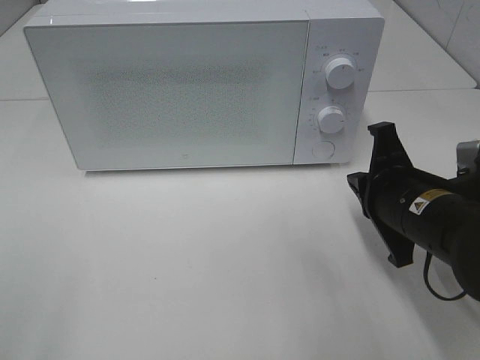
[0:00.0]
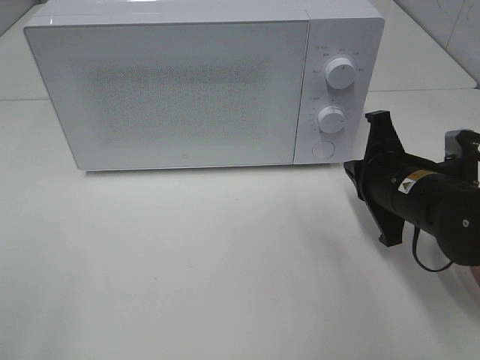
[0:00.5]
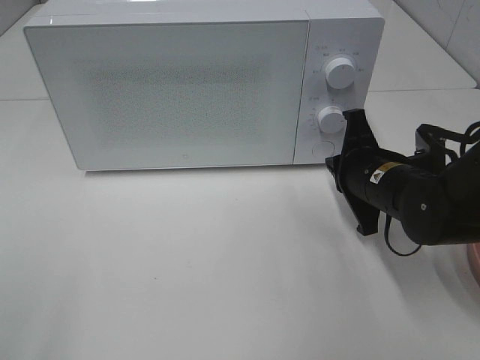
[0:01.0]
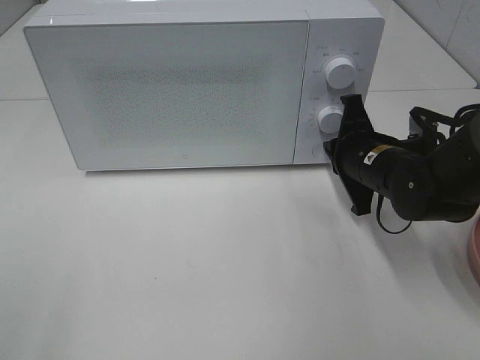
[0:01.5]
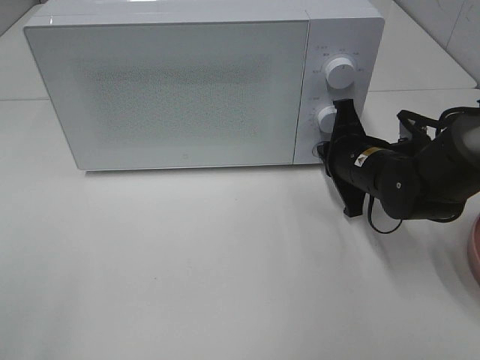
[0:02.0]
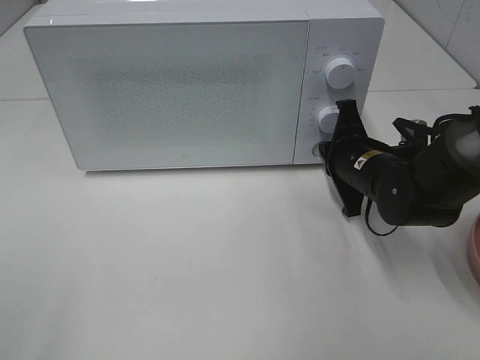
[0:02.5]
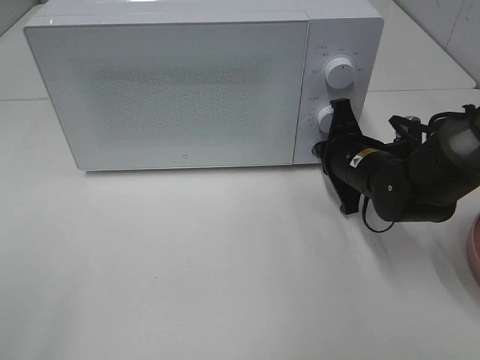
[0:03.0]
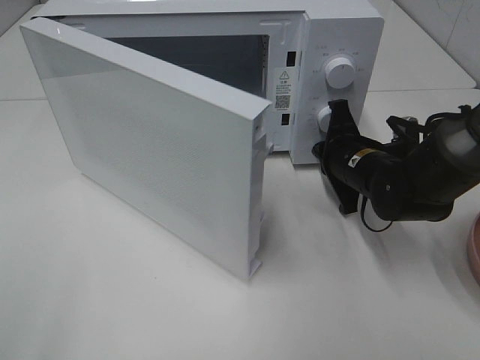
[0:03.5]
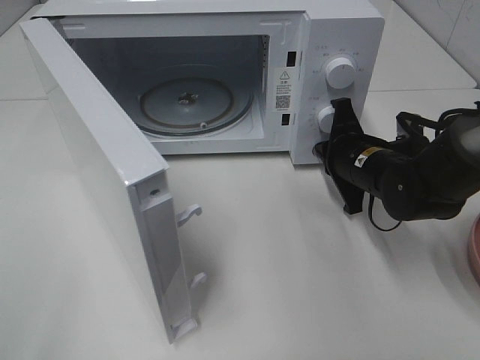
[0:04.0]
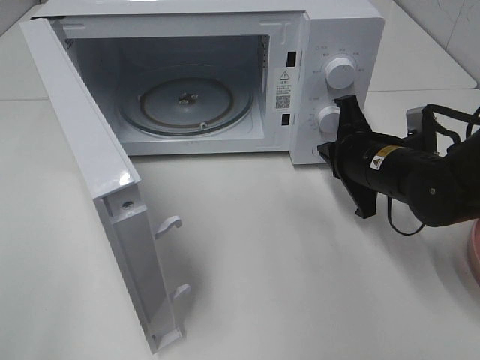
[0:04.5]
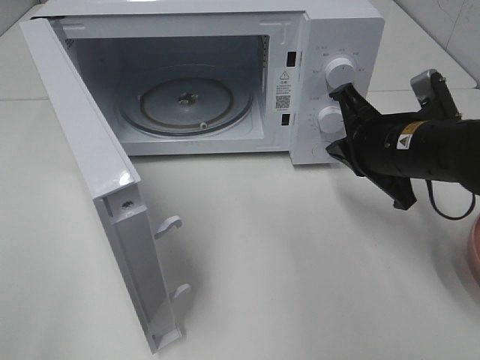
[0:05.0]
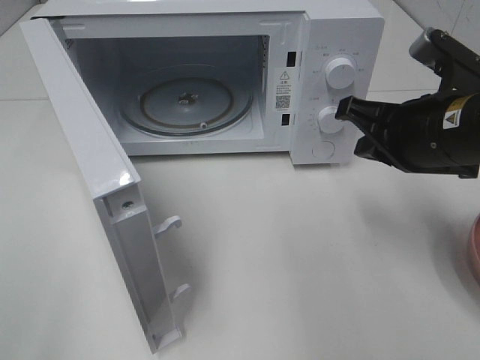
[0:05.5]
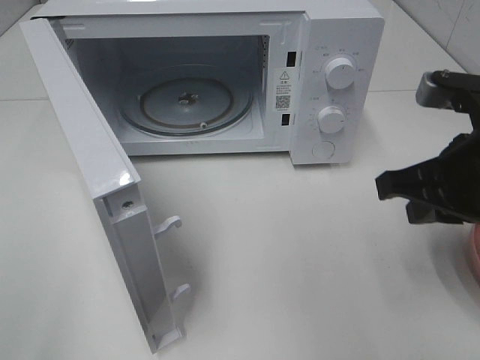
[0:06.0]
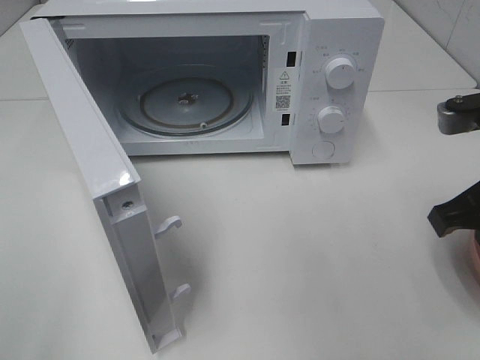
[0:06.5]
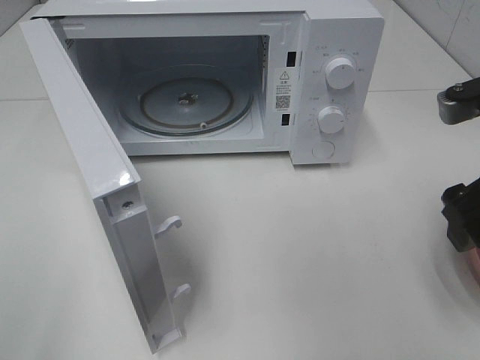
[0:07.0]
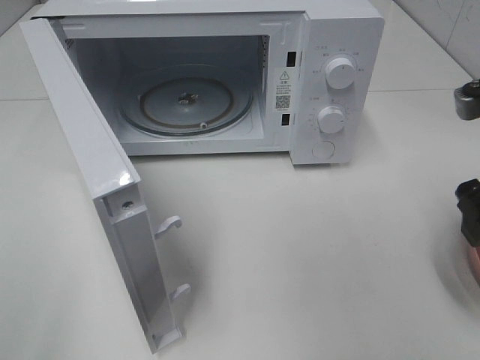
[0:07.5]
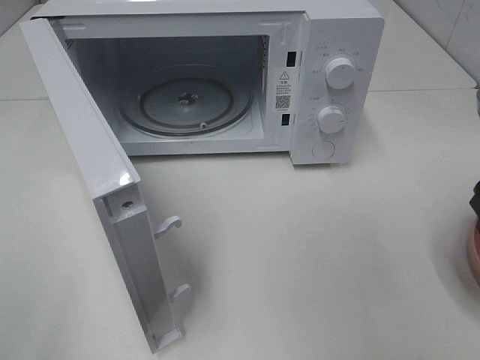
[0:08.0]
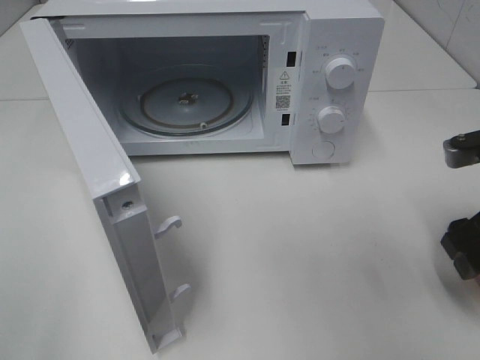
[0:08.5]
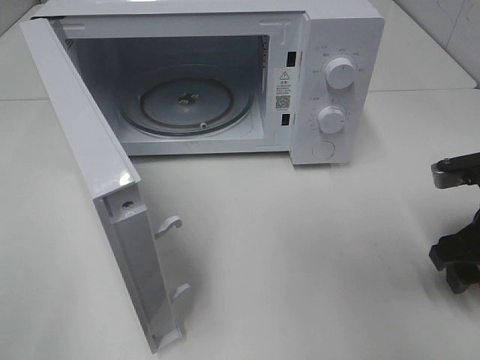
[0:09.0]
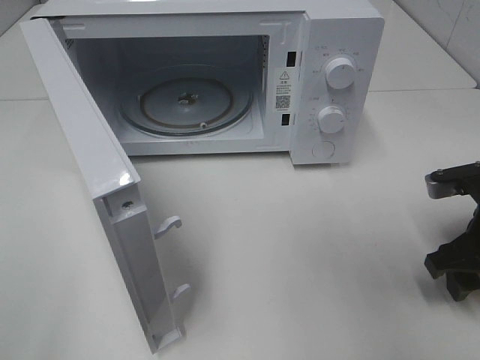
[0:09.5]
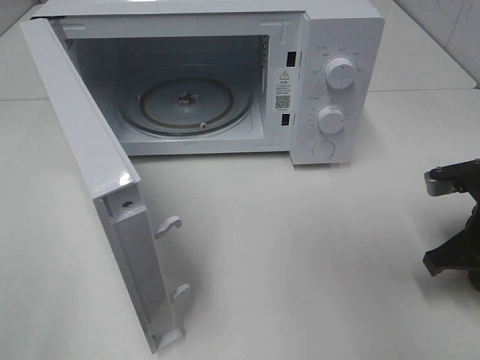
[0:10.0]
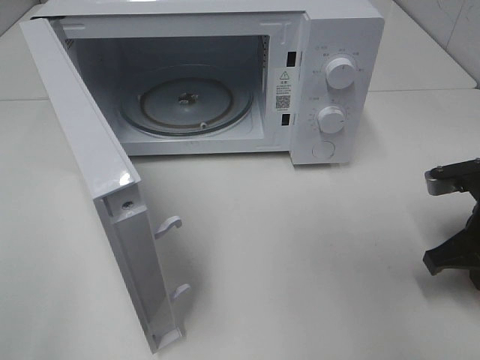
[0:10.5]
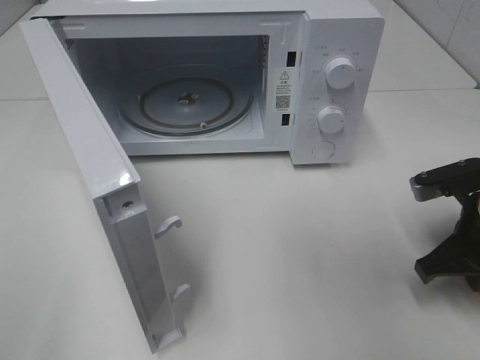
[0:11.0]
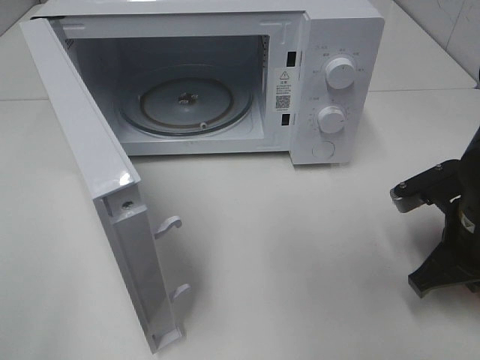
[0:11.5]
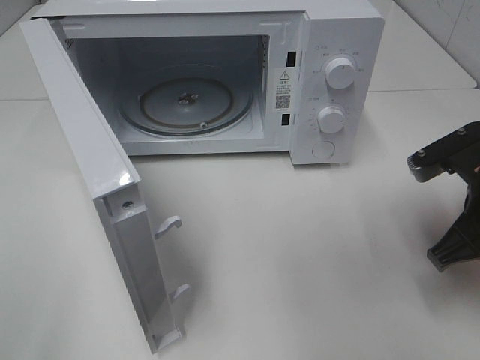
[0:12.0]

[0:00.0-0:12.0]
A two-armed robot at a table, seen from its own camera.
Task of the whole recording: Heat the burger.
Step, 0:00.0 to 0:04.0: Right hand: press the switch.
Step, 0:04.5 to 0:10.5: Right hand: grab the plate with the hamburger.
0:00.0 to 0:02.0: The right gripper shifts about 10 cm forward.
0:04.0 to 0:06.0: The right gripper goes approximately 20 cm backward and upward.
0:06.0 to 0:08.0: The right gripper goes roughly 5 cm to the right, and opens up.
0:08.0 to 0:10.0: The right gripper is displaced downward by some 10 cm, and closes up.
0:10.0 to 0:12.0: The right gripper shifts by about 5 cm.

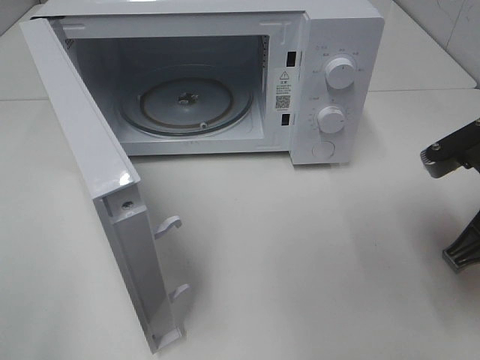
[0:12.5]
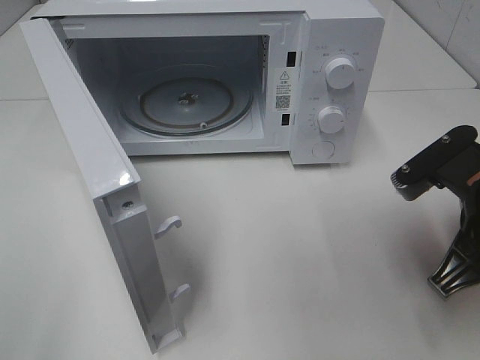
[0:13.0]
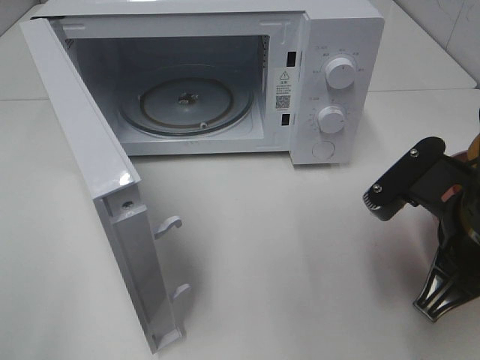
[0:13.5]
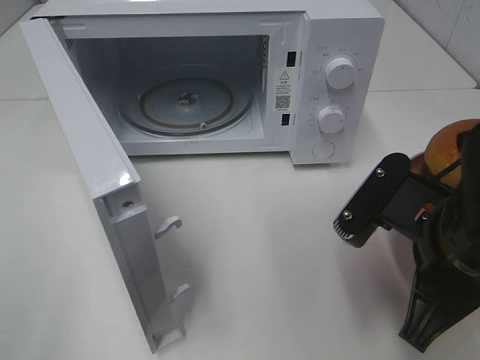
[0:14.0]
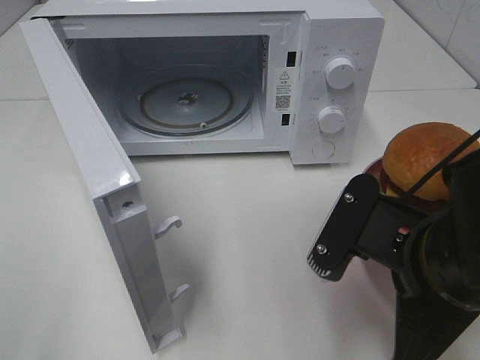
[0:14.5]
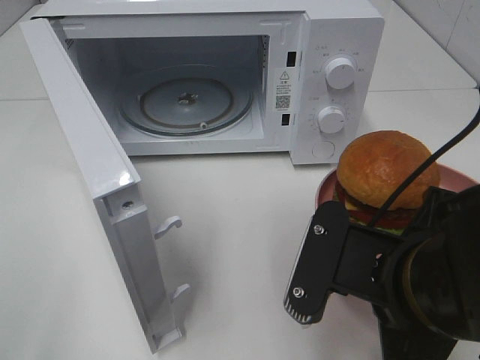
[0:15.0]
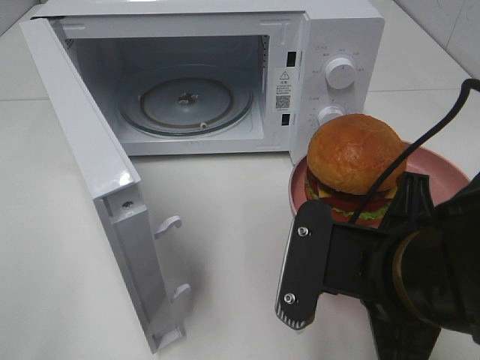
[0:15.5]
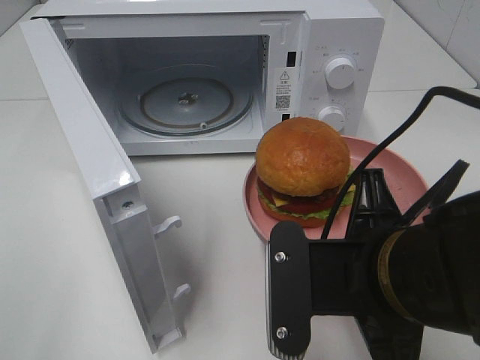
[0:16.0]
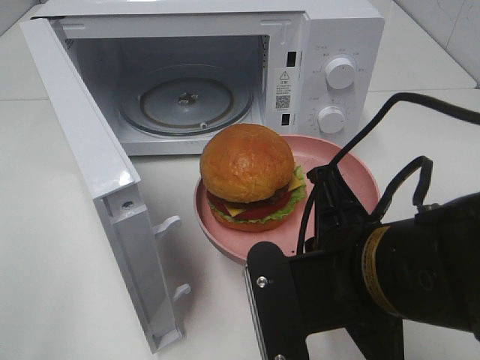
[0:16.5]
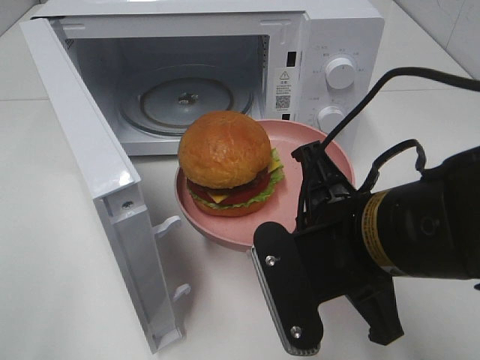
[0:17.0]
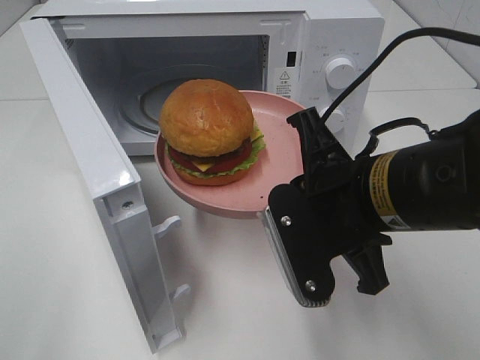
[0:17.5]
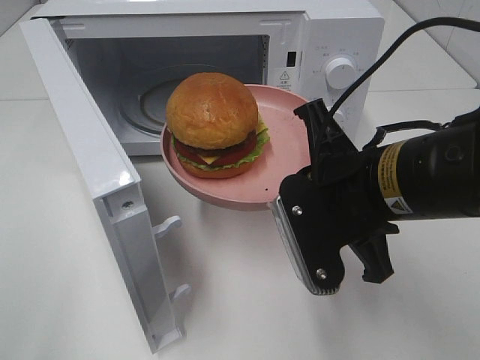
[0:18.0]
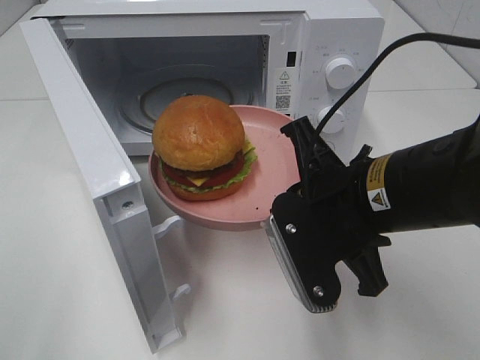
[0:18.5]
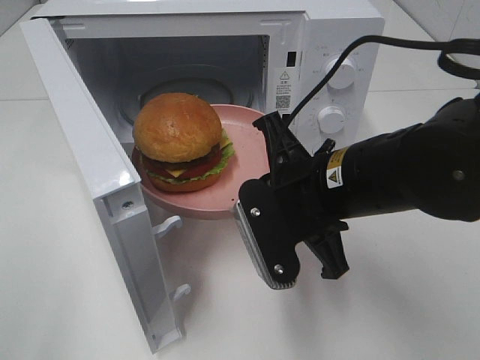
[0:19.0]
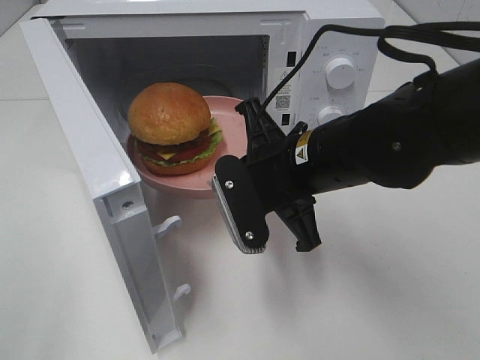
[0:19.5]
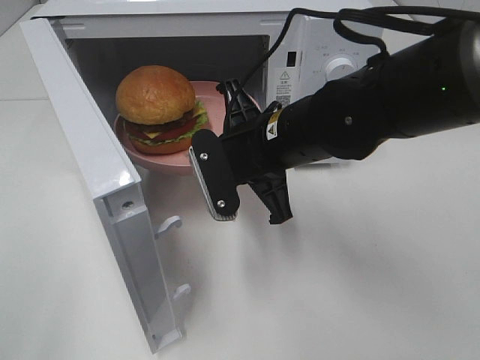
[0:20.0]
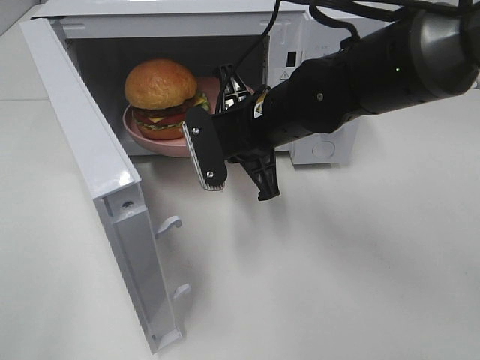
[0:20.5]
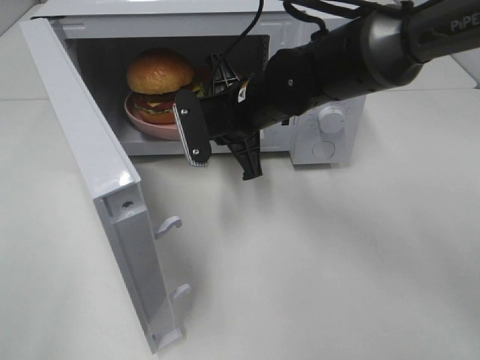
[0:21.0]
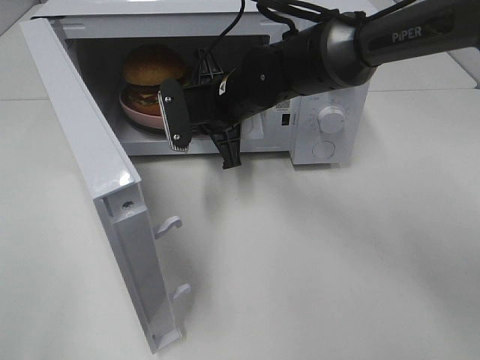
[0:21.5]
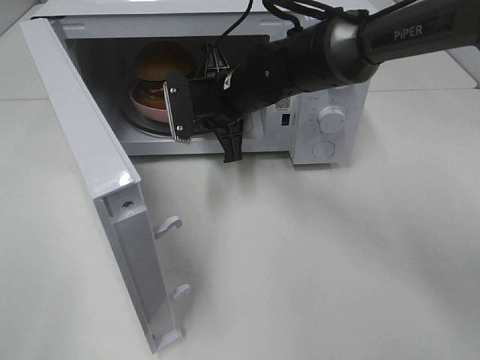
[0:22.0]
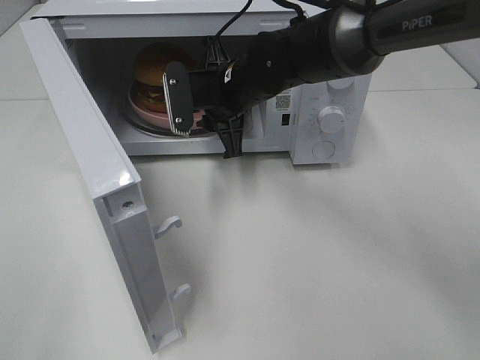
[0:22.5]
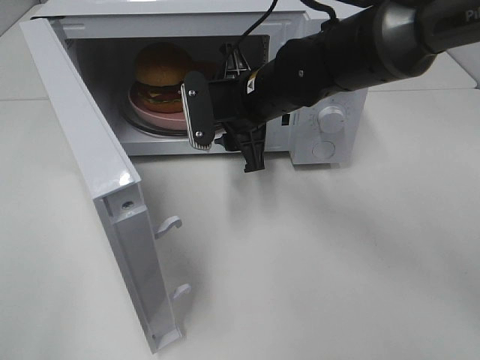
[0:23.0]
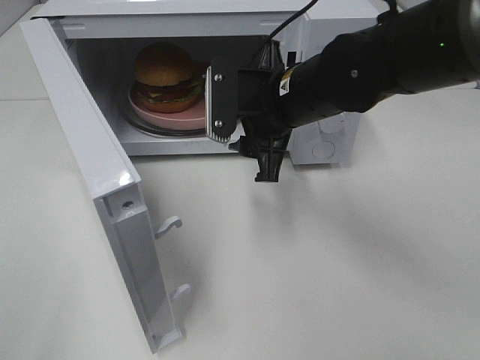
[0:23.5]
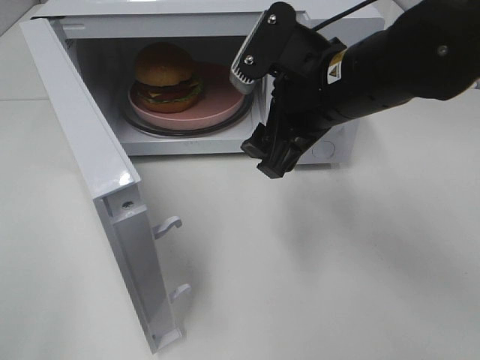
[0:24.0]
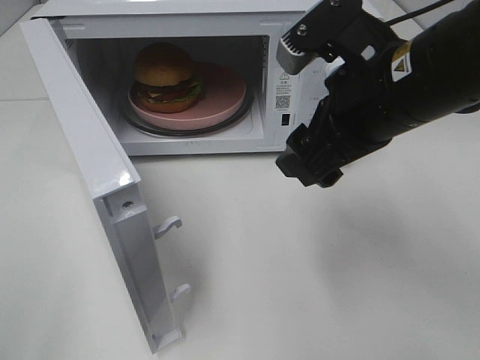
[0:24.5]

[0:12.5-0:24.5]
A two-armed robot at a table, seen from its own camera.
Task of the whole recording: Heat the burger.
Step, 0:12.5 to 0:22.0: Right hand: place the plate in the microwave.
0:12.5 to 0:14.5: The right gripper goes about 10 cm to the left and backward.
0:16.5 to 0:18.5: The right gripper heads forward, covering about 5 cm.
0:18.5 to 0:20.5: The right gripper heads forward and to the left, covering roughly 15 cm.
0:20.5 to 0:22.5: The right gripper heads forward, covering roughly 10 cm.
0:22.5 to 0:24.5: The right gripper moves backward, to the right and upward, about 20 cm, and opens its fingers.

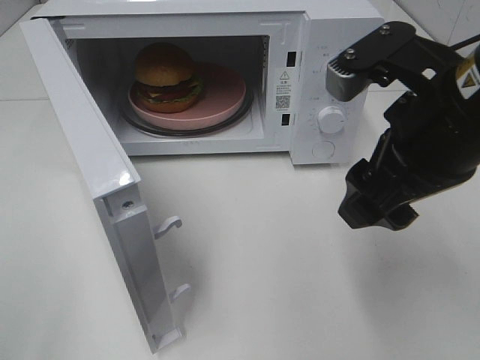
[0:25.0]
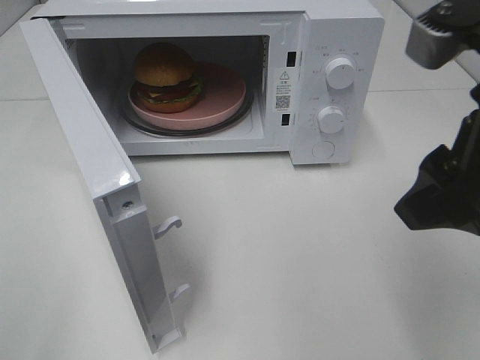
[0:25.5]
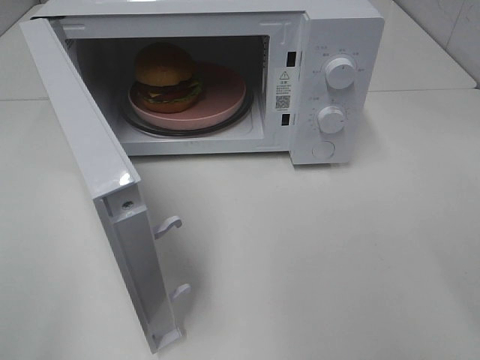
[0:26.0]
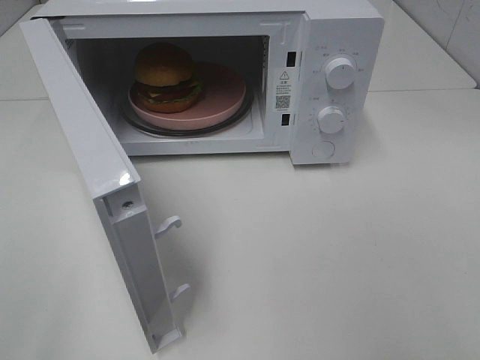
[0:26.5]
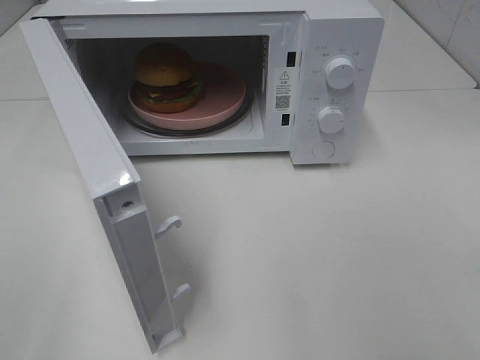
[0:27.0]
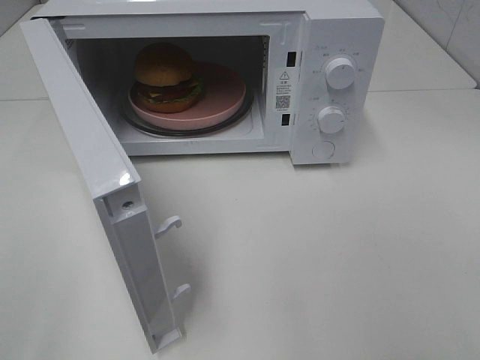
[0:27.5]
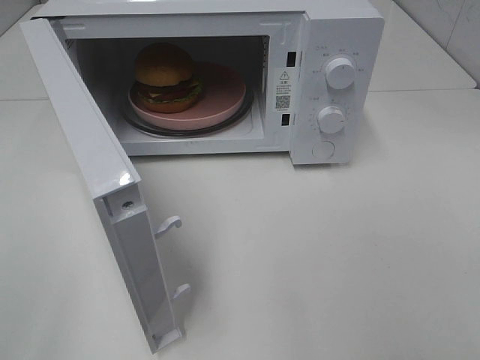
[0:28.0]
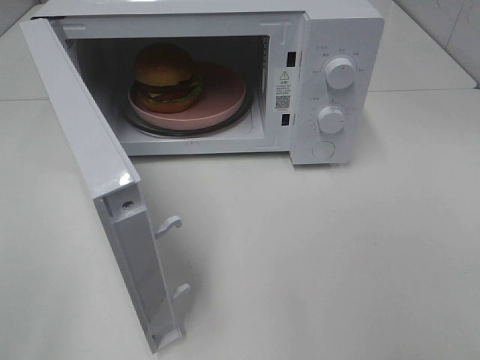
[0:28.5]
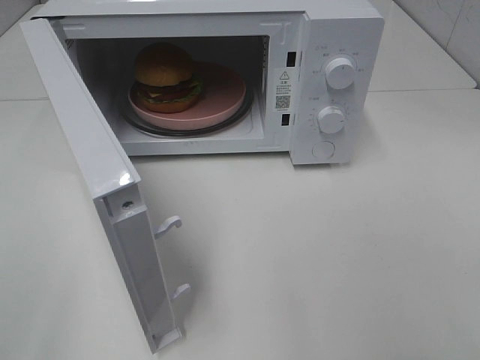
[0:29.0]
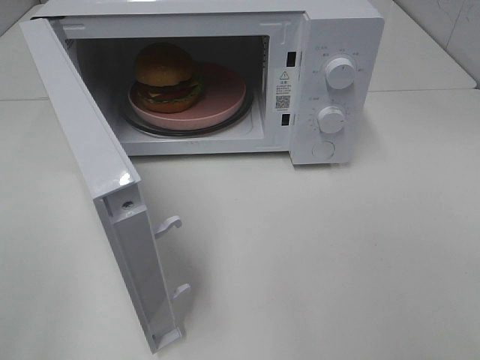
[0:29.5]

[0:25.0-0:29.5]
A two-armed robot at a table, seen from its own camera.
Task of the whole recording: Heat the burger.
0:25.0 to 0:27.0: The right gripper goes roughly 25 cm backward and to the right.
